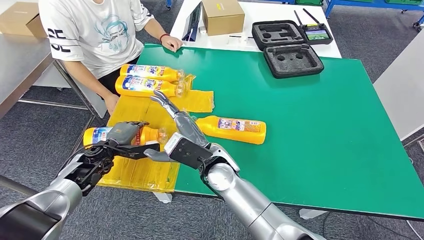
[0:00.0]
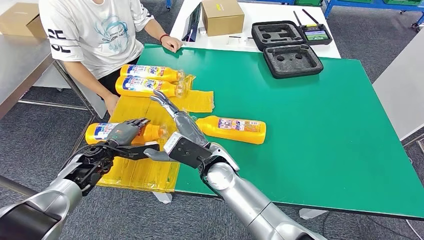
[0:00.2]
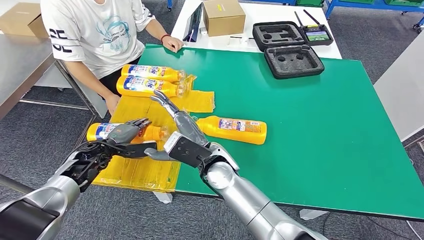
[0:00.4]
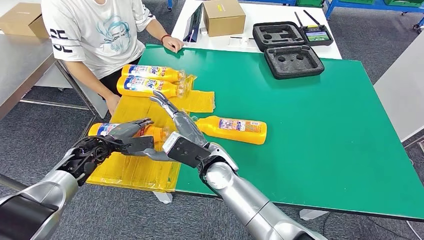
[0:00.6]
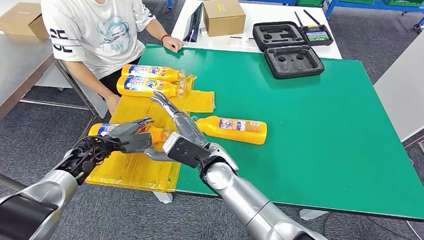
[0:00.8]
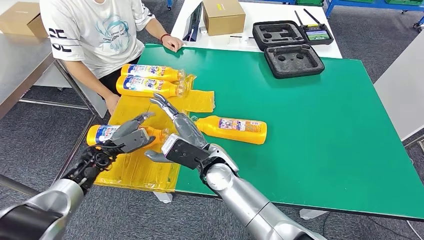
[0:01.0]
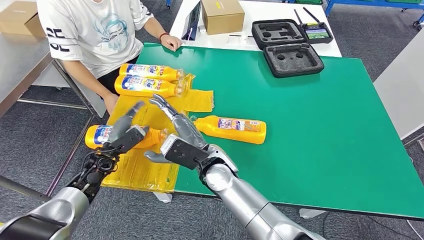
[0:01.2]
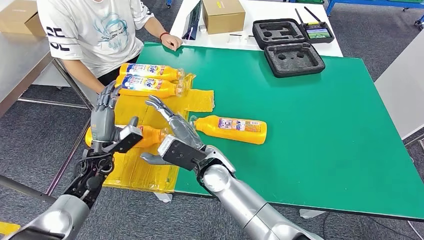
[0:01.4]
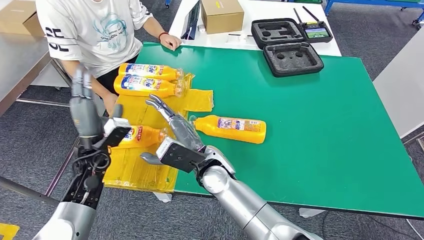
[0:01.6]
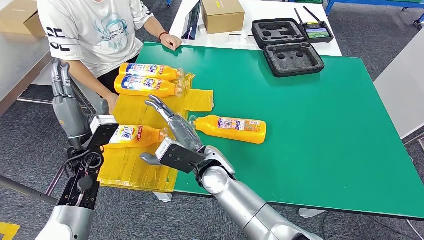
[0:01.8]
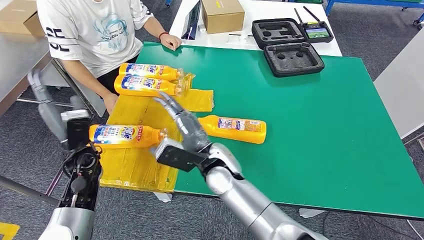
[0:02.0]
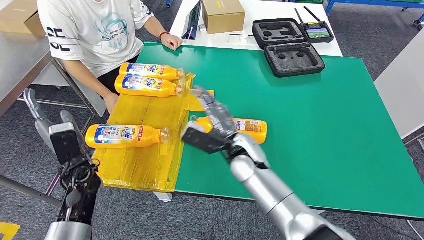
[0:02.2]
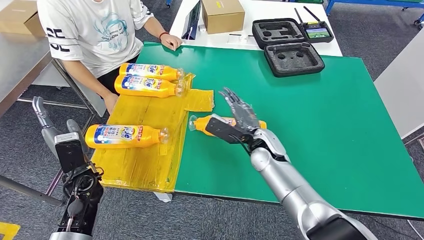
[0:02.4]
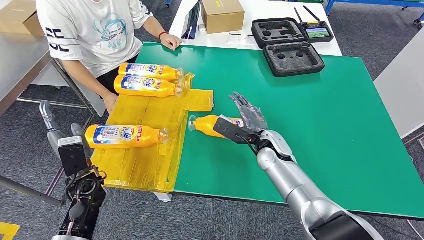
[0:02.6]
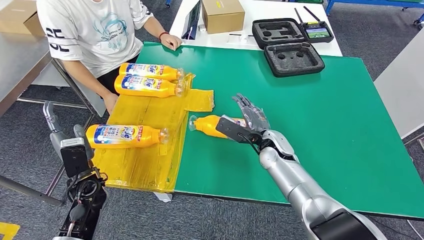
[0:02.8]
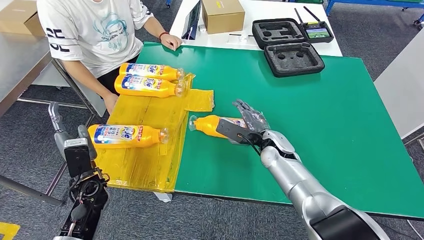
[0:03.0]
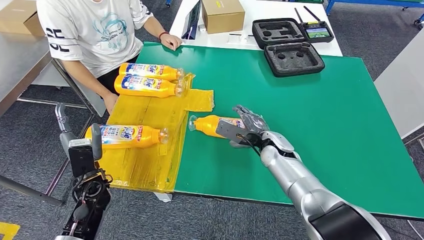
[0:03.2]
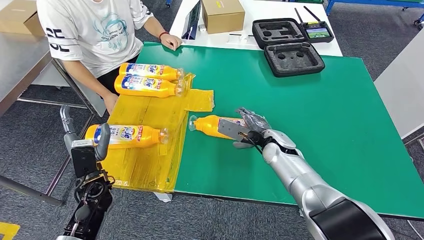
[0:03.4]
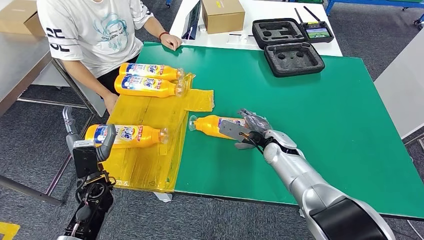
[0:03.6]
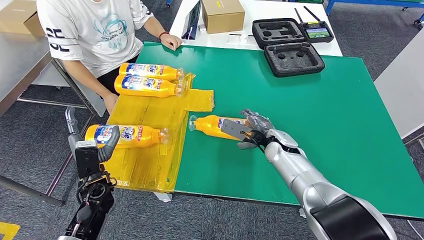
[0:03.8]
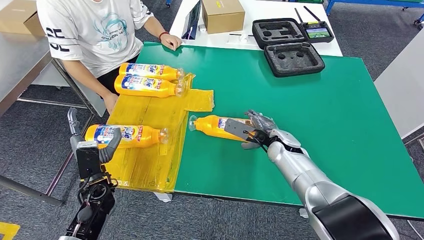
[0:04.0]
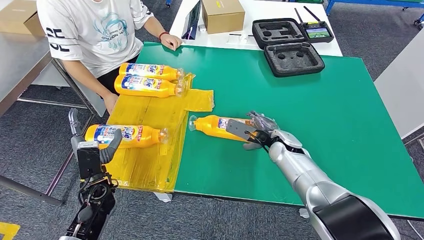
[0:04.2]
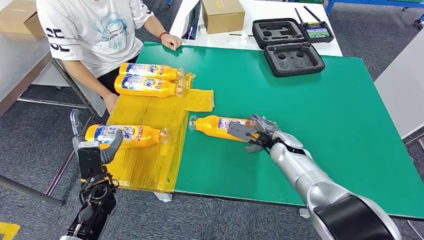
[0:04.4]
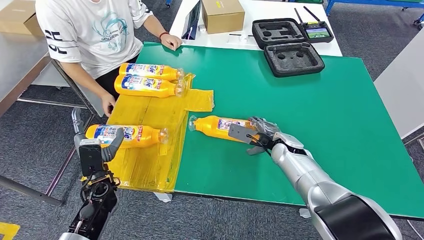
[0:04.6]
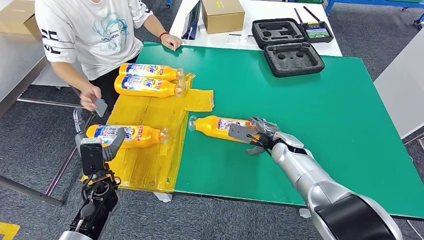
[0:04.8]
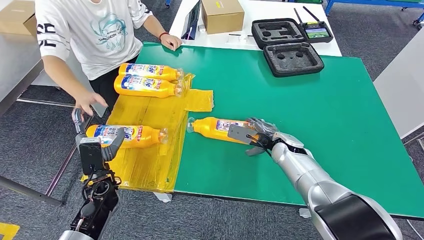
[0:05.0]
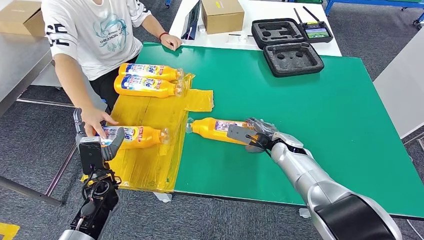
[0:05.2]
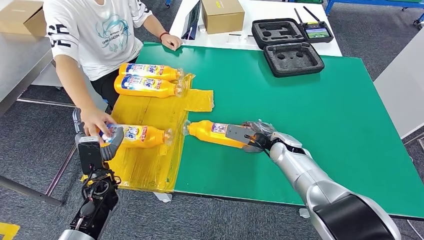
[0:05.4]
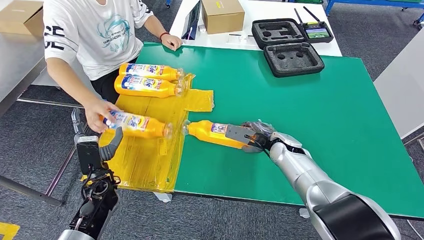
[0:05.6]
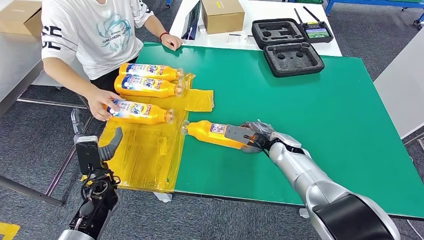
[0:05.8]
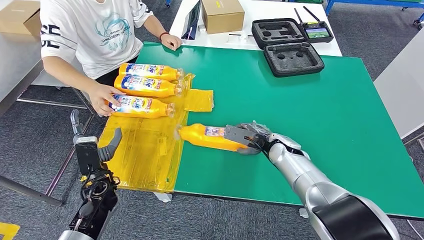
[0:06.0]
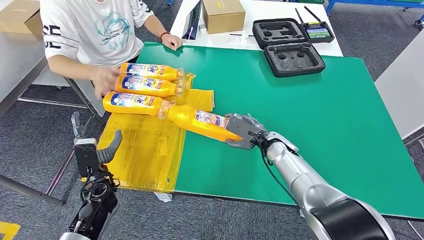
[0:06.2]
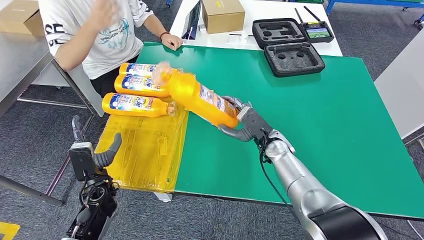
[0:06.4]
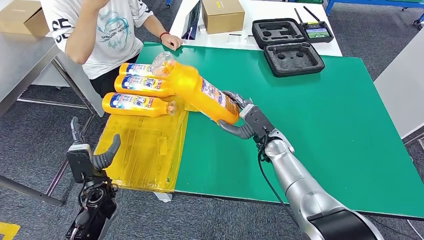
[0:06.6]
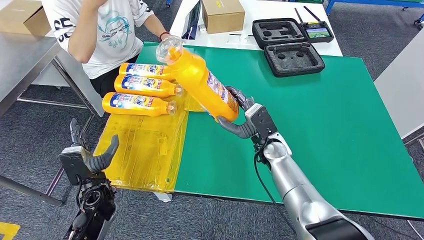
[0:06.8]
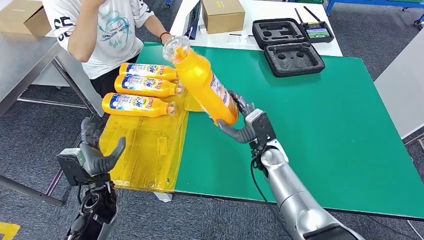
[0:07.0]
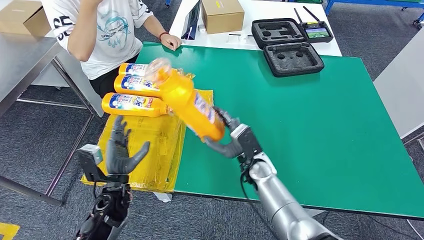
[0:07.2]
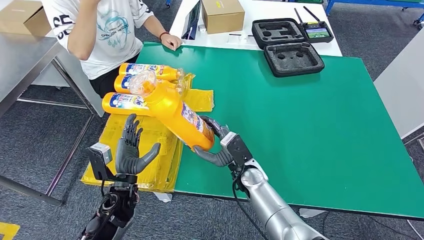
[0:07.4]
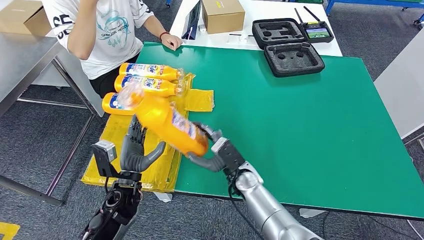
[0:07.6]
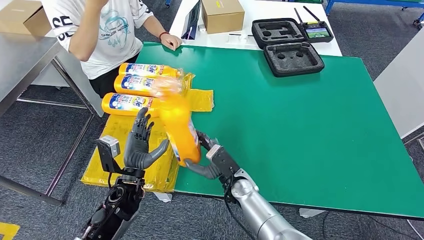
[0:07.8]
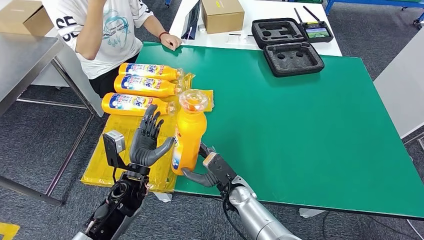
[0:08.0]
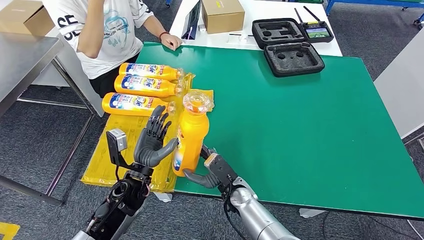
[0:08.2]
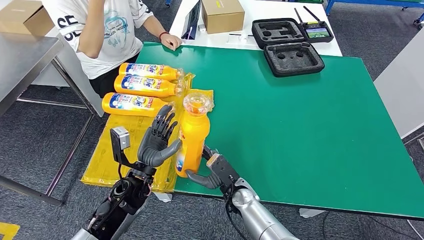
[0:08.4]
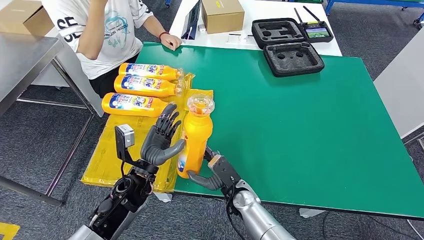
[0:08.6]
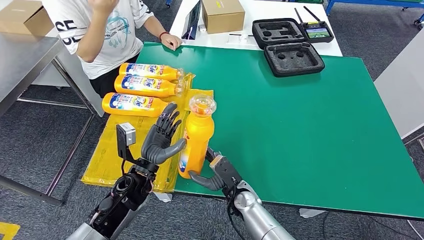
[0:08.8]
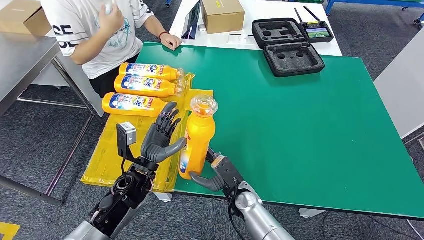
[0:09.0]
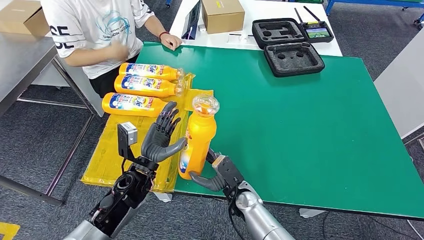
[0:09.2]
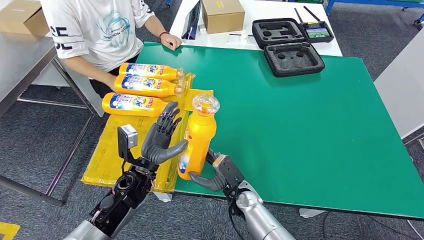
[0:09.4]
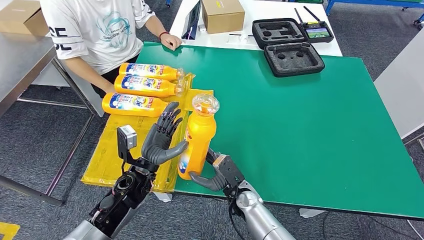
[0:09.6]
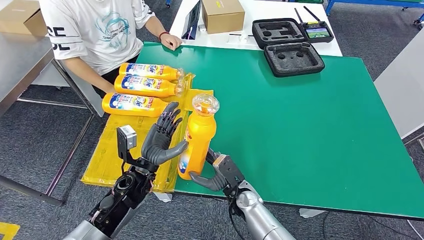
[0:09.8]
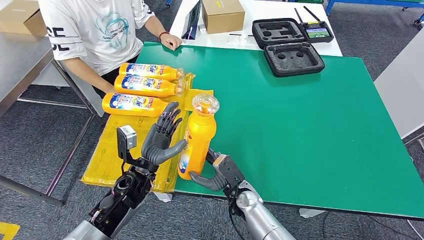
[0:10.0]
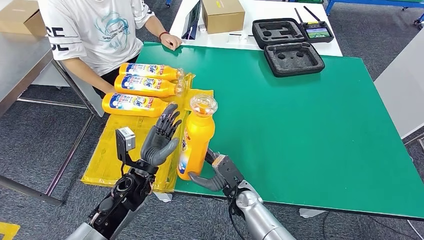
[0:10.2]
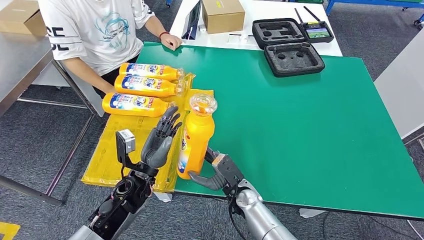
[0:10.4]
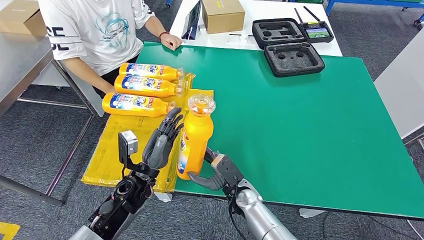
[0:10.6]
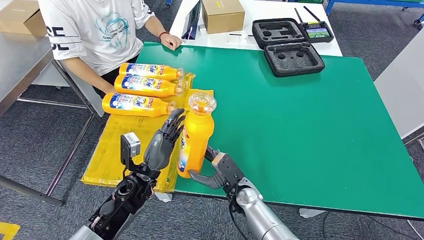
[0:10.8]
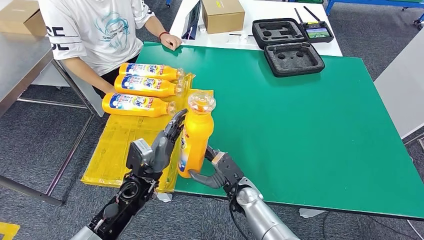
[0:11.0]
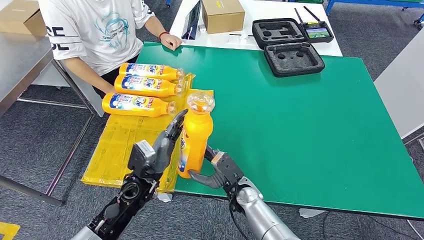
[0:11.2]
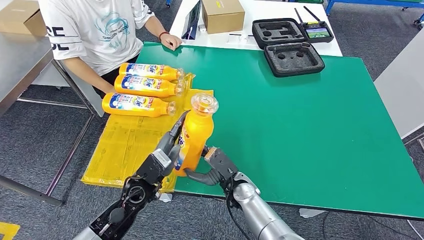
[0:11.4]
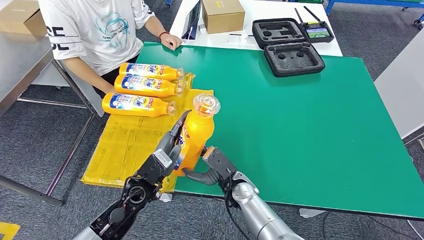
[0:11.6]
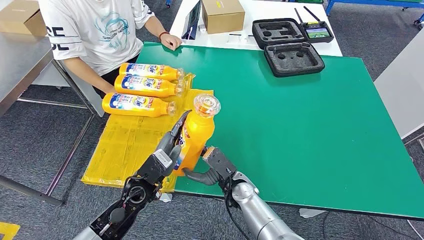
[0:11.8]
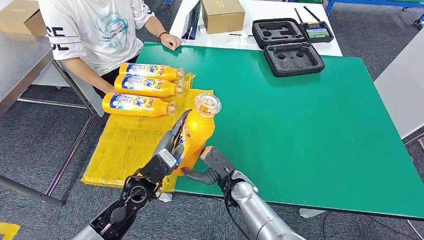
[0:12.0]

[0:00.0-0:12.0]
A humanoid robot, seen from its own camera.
Step, 0:00.0 to 0:06.6: Pick up the bottle from the table.
0:04.4 to 0:06.0: There are only small adjustments of the hands.
0:07.6 to 0:09.0: The right hand shifts by roughly 5 cm, while the left hand changes place by about 5 cm.
0:09.0 to 0:10.4: Both hands stay put.

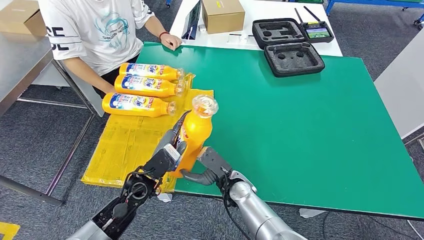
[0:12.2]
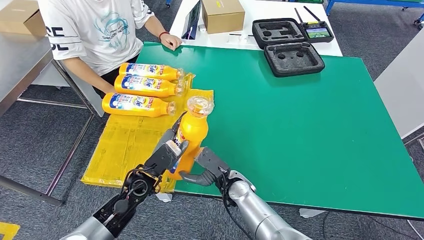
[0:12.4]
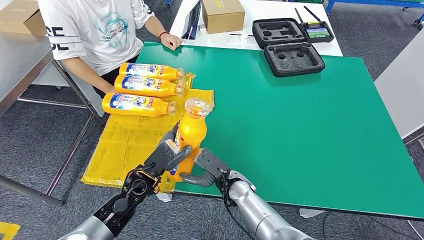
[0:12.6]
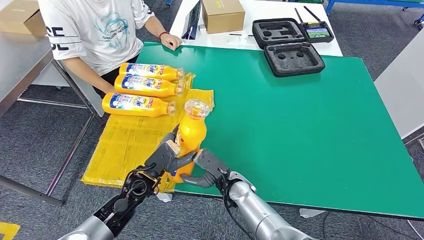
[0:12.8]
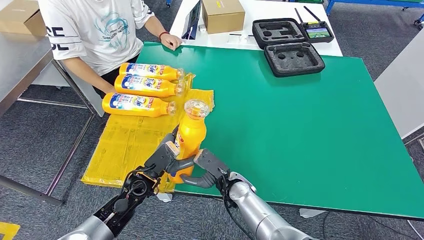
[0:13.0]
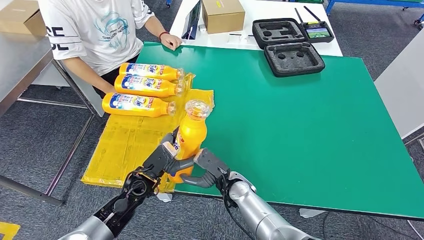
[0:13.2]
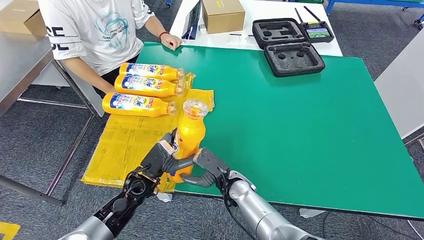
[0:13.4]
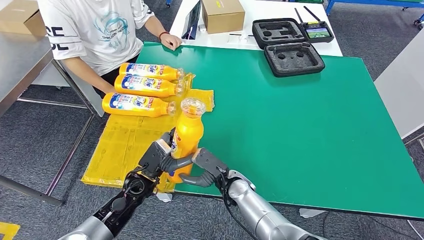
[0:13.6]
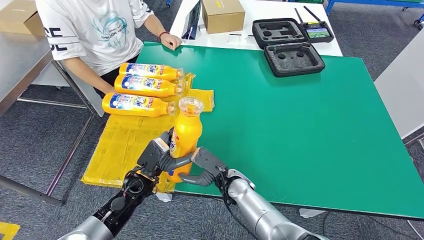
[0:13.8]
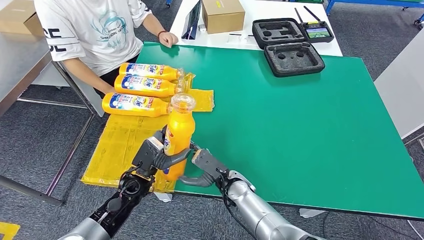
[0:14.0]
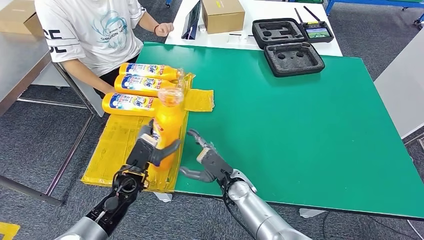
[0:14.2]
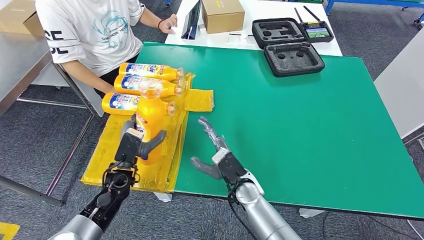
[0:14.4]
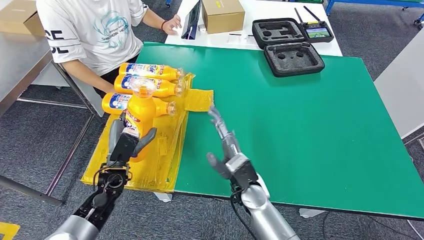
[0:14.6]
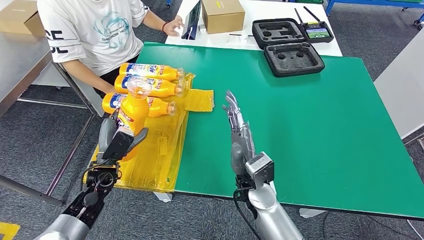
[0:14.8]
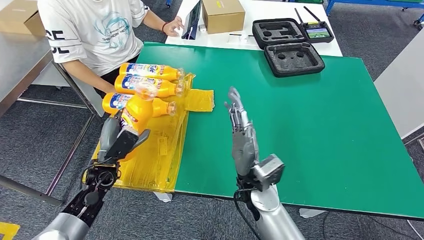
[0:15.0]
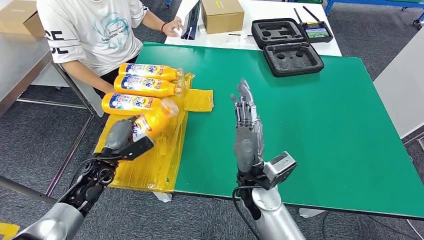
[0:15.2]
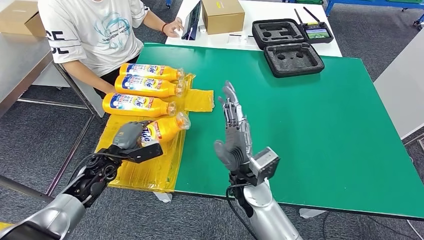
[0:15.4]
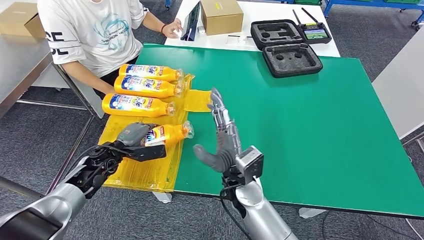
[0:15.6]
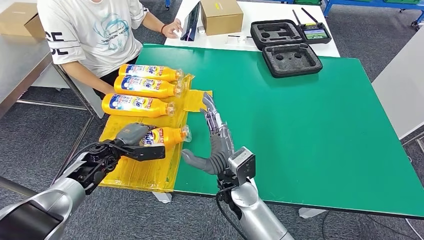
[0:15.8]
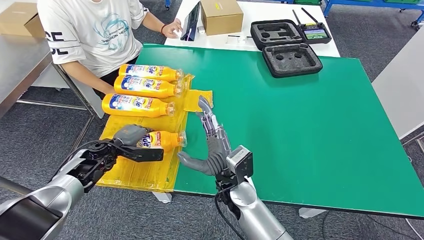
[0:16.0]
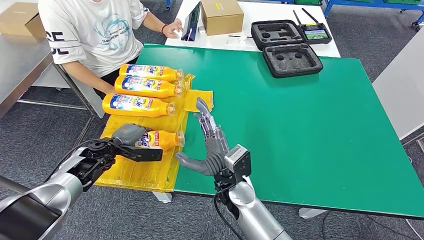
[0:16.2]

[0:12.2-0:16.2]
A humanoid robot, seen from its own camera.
Step, 0:12.2 to 0:16.2: Flip the bottle to face forward.
0:12.2 to 0:13.6: The hands stay close to where they were, moving slightly.
0:13.6 to 0:14.8: The left hand goes roughly 10 cm to the left, while the right hand goes about 10 cm upward.

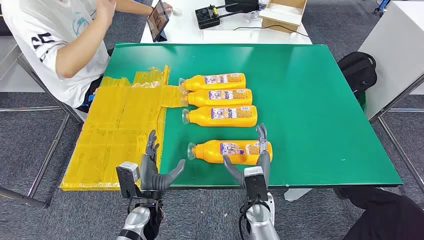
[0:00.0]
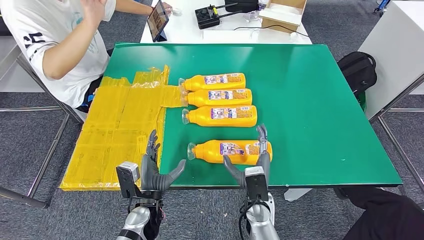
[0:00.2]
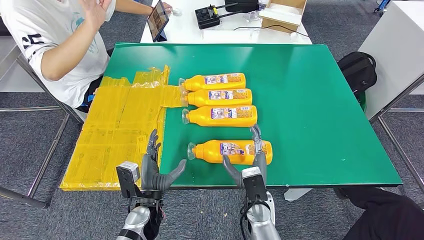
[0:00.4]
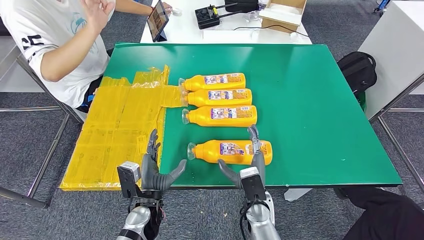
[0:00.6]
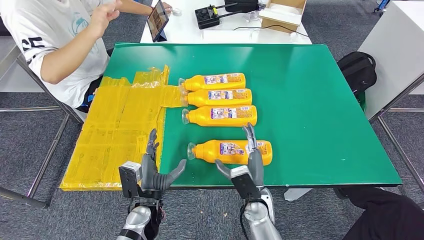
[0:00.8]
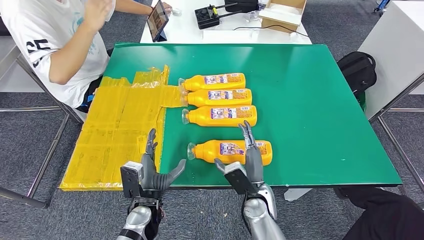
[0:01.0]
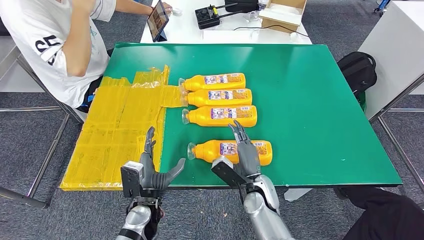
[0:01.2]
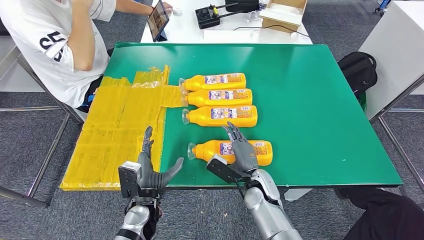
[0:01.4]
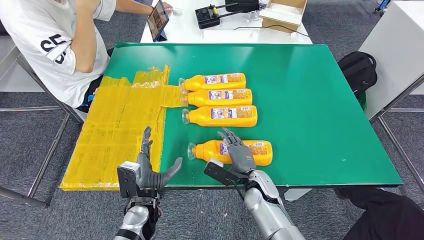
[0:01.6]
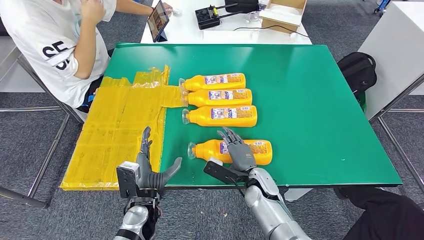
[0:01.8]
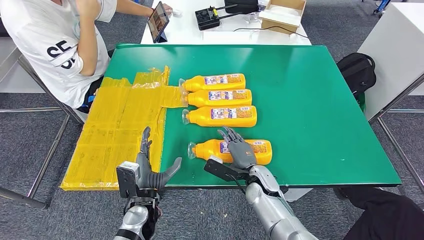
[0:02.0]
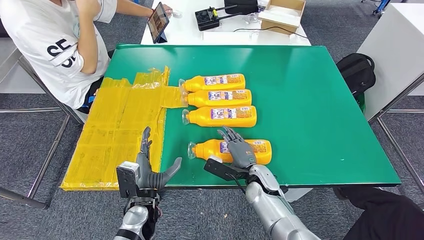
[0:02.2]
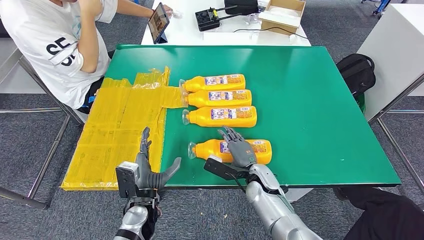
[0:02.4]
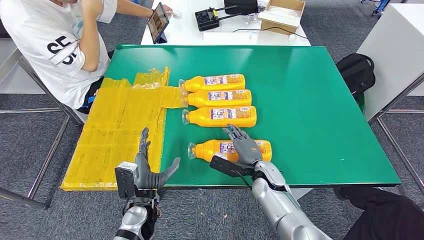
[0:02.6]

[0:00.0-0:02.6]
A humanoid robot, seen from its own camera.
0:01.2 to 0:02.6: The right hand ends up roughly 5 cm from where it was.
